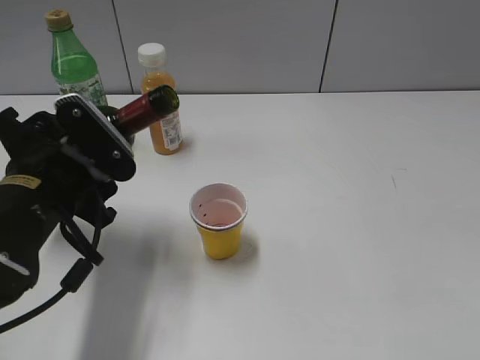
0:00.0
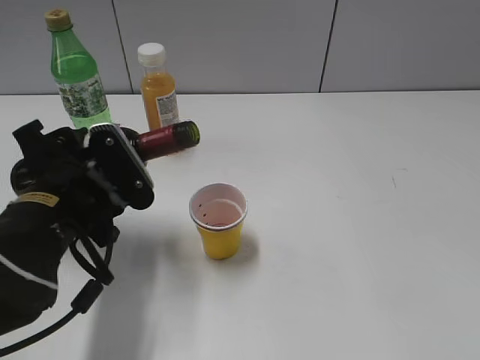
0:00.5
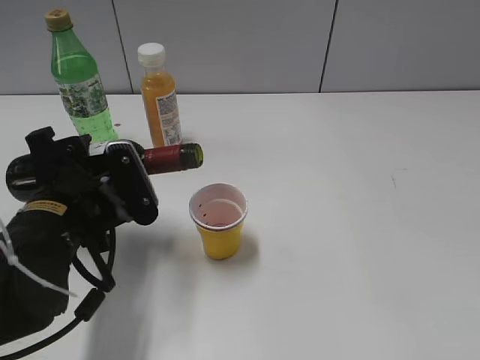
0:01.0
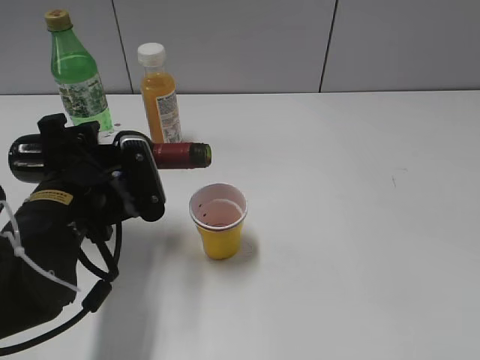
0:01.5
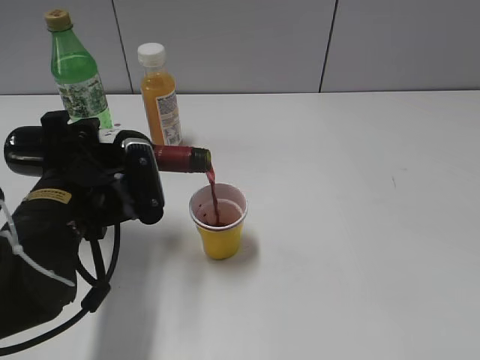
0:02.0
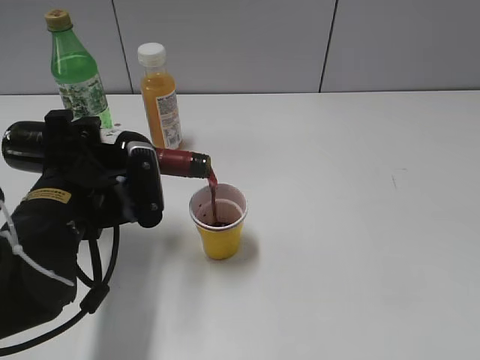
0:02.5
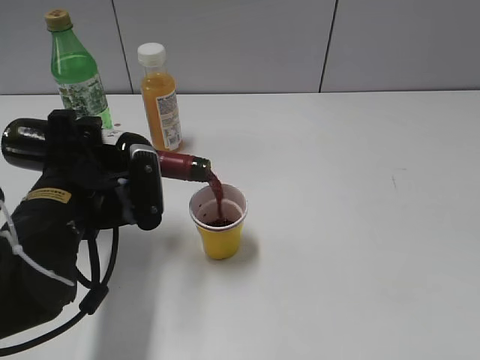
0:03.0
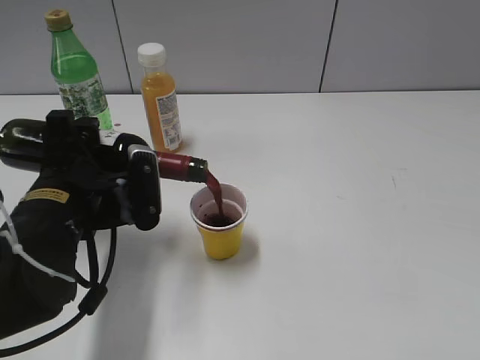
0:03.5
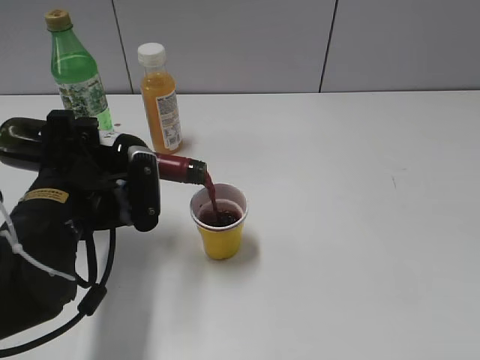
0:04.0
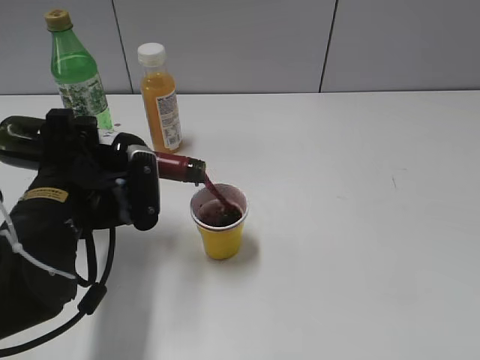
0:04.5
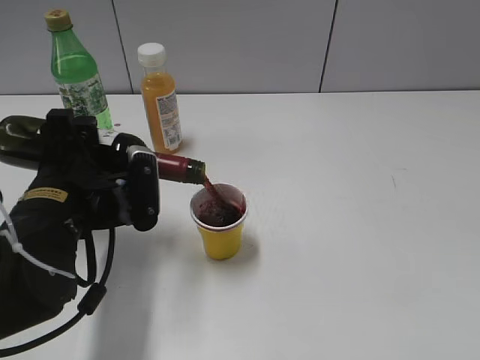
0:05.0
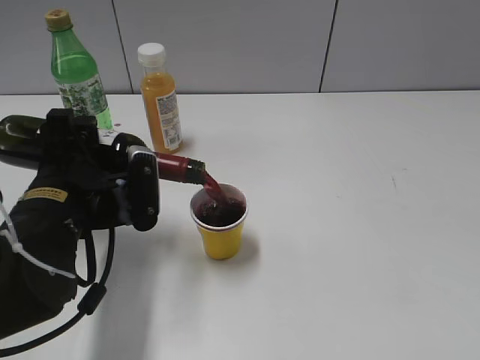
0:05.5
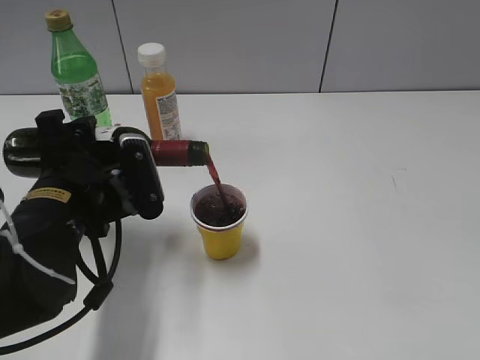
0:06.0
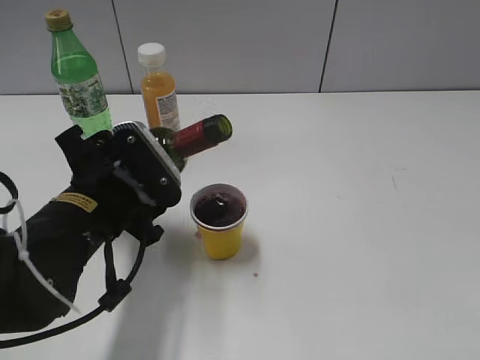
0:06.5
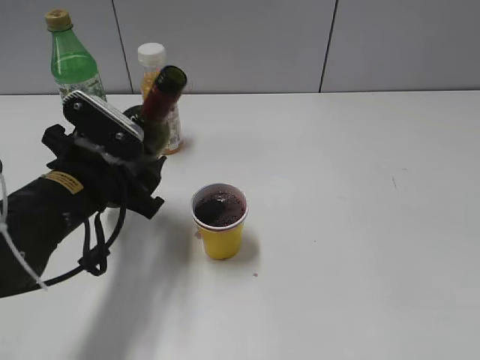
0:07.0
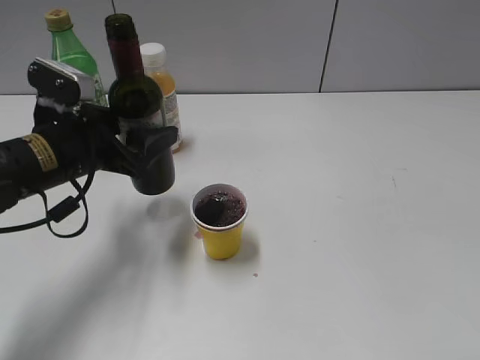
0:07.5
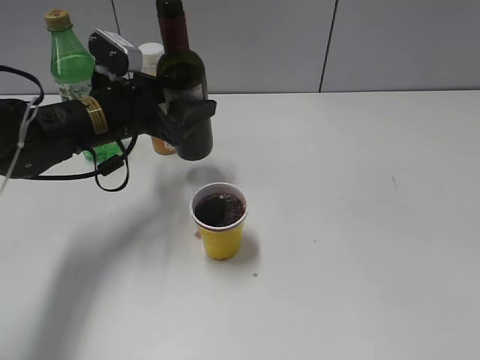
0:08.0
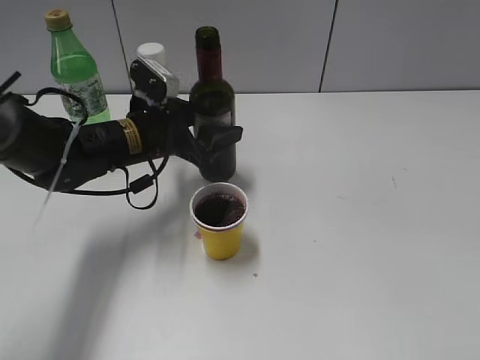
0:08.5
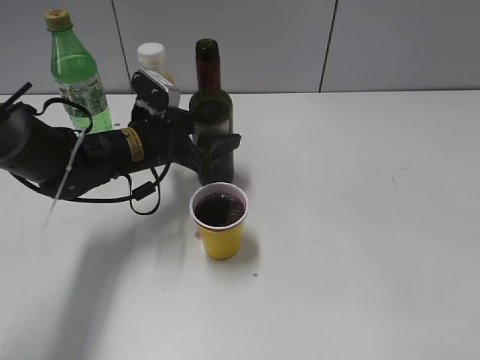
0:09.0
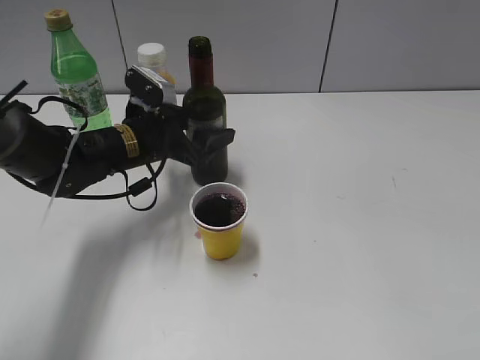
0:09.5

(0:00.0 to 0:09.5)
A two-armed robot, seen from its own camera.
Step, 0:00.0 - 0:06.5: Pour the red wine from bottle to cup with left gripper.
0:02.0 - 0:04.0: The grippers make only small movements.
0:04.0 - 0:05.5: The two grippers keep their place.
0:05.5 - 0:07.5: The left gripper goes some 5 cm forward.
0:07.5 - 0:09.5: The left gripper is displaced forward, to the right and downward by roughly 10 cm.

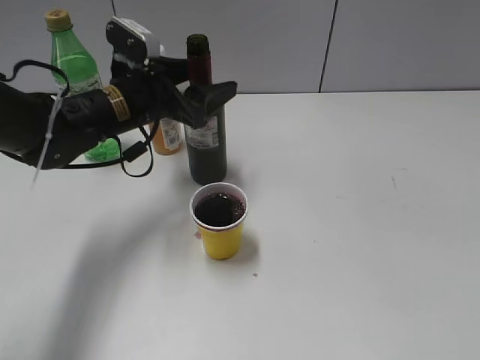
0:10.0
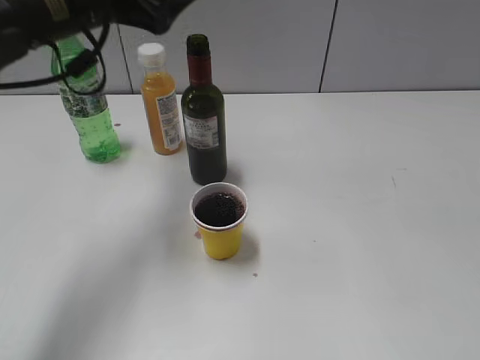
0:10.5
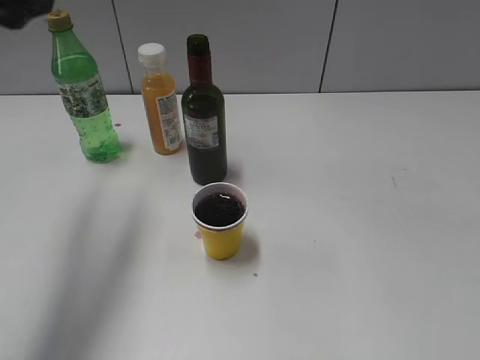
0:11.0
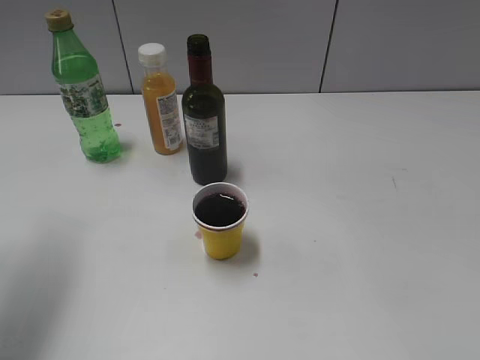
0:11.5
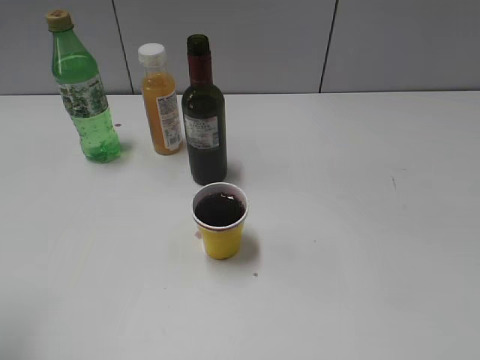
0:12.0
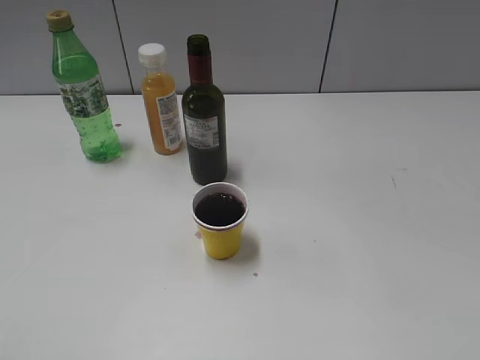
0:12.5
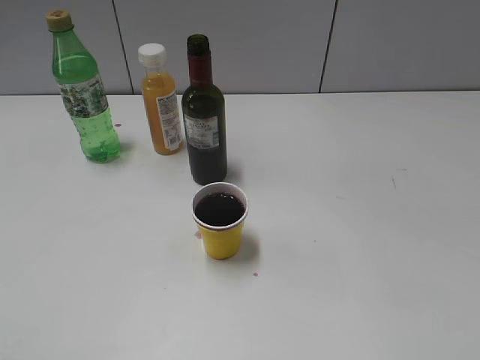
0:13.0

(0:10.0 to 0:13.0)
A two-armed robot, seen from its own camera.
0:10.0 - 0:11.5: The left gripper travels upward, to the left and backward by approximately 25 cm, and closes up.
0:11.5 - 0:13.0: The left gripper moves backward, roughly 25 cm.

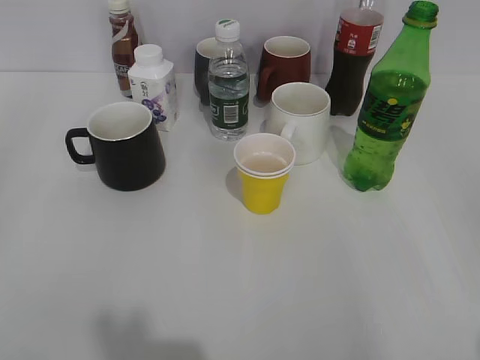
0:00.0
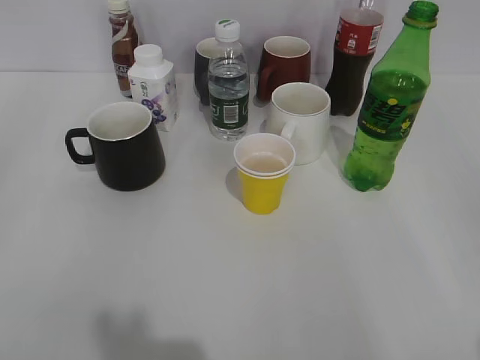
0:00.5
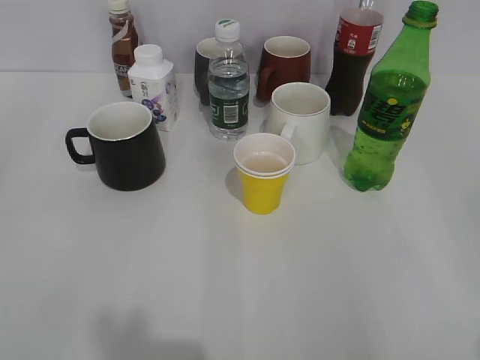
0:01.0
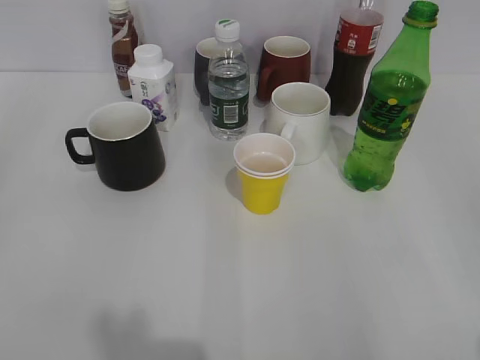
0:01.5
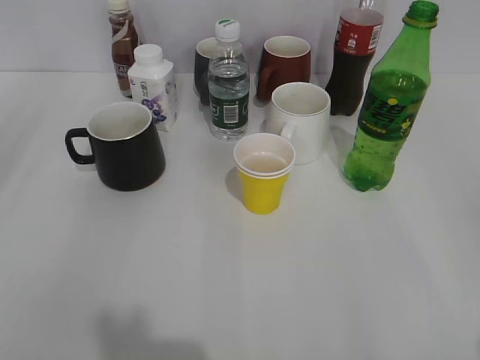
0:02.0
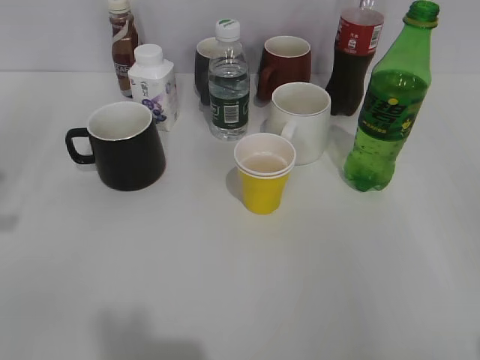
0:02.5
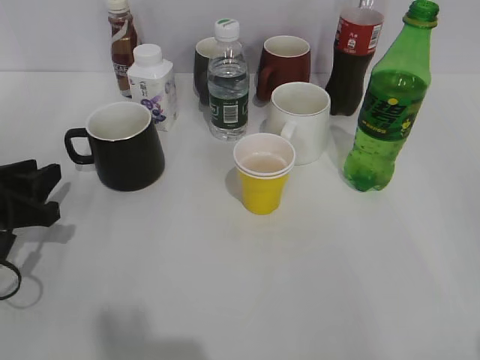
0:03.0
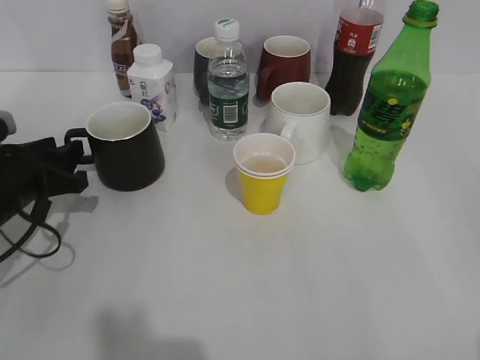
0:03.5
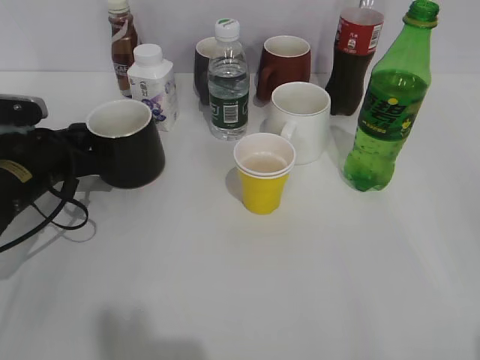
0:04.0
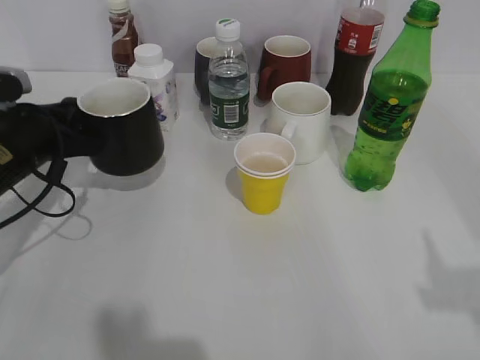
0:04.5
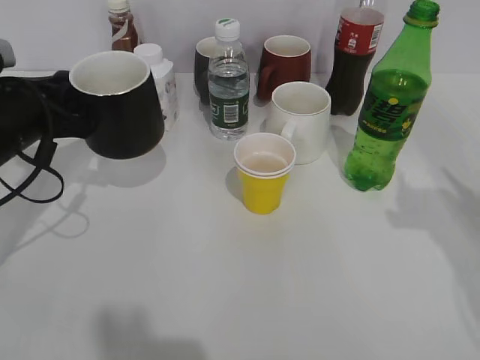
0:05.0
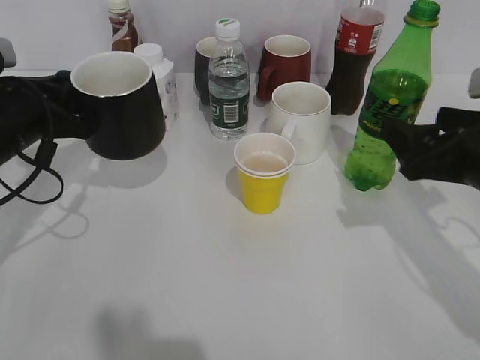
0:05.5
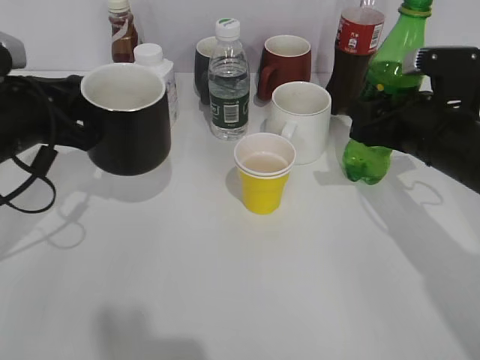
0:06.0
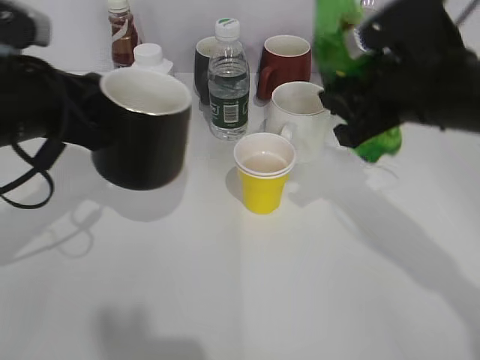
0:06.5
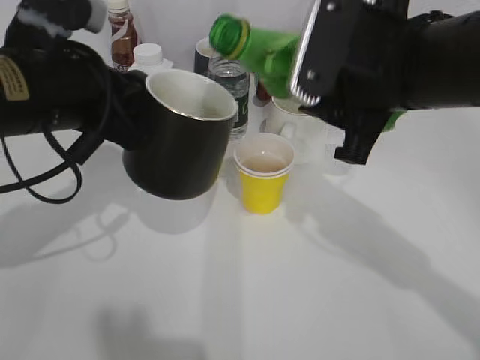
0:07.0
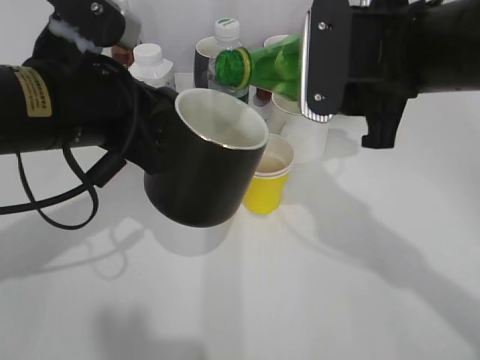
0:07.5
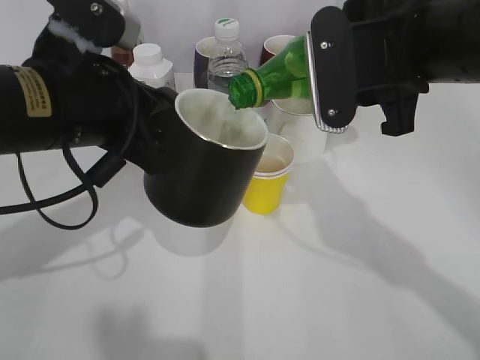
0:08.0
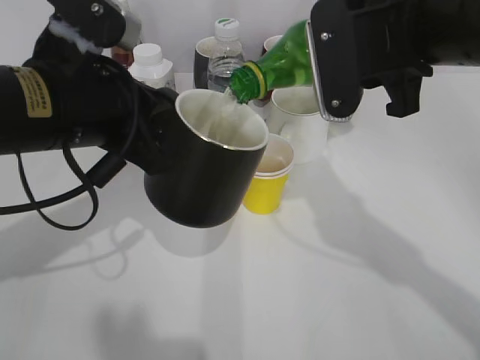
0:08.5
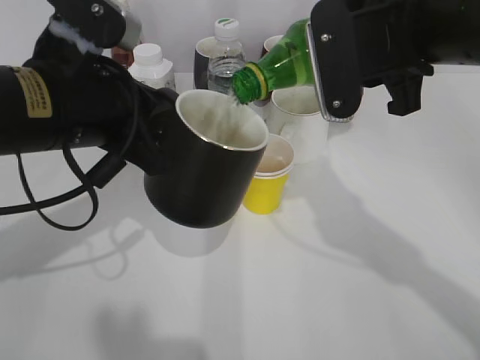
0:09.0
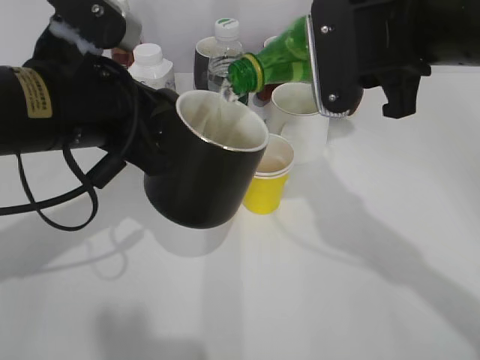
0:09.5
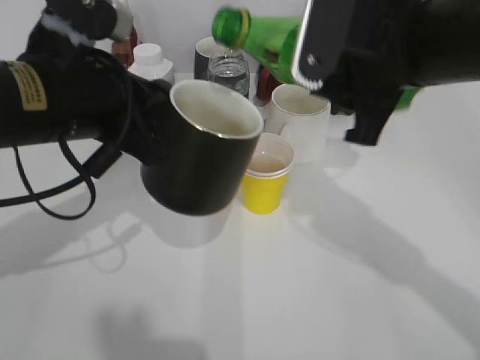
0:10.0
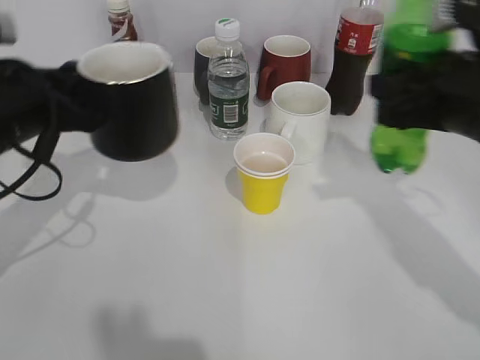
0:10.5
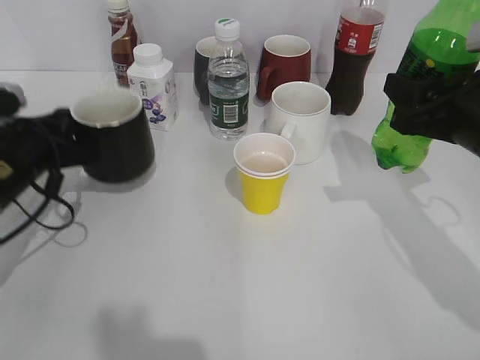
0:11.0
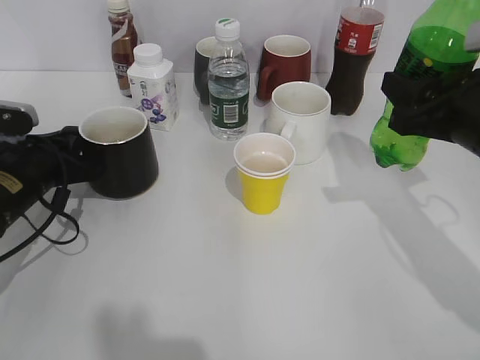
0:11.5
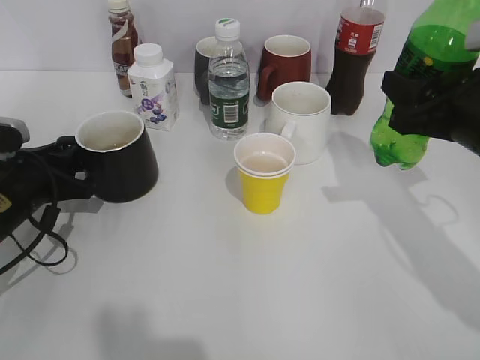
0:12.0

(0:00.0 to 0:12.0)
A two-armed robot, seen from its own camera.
Step, 0:02.0 - 0:04.0: Grasp the black cup with left gripper.
Step, 0:06.5 - 0:09.5: Pour the sprite from bottle to cup with right gripper.
Step, 0:10.5 - 0:12.0: Place the black cup on the table with left gripper.
0:02.0 - 0:04.0: The left gripper heads forward and downward, covering approximately 35 cm.
0:04.0 - 0:06.0: The right gripper travels forward by roughly 30 cm, and closes up; the left gripper heads upward, covering approximately 10 cm.
0:06.0 - 0:08.0: The right gripper moves upward and to the left, approximately 15 cm. Meanwhile the left gripper is displaced to the right and upward by roughly 10 cm.
0:10.0 - 0:12.0: The right gripper shifts roughly 10 cm to the right and downward; the left gripper shifts about 20 cm downward and to the left, and opens up.

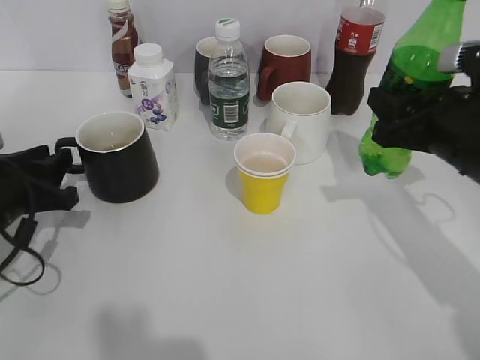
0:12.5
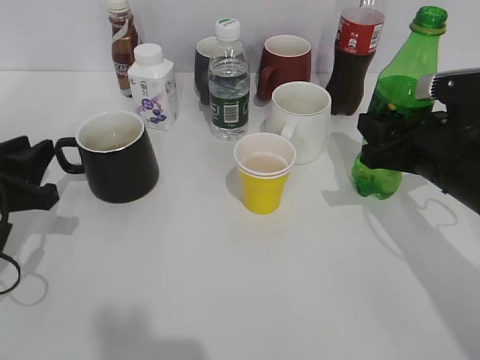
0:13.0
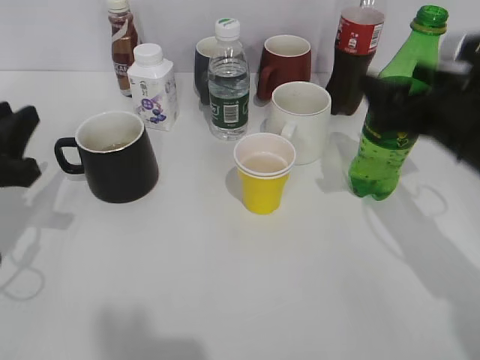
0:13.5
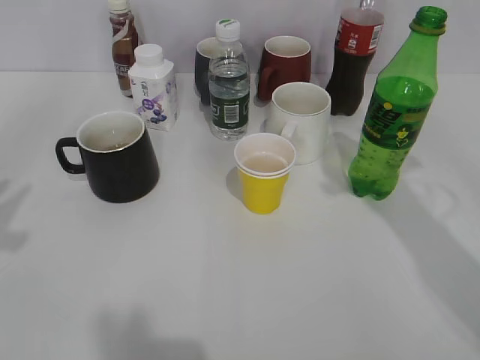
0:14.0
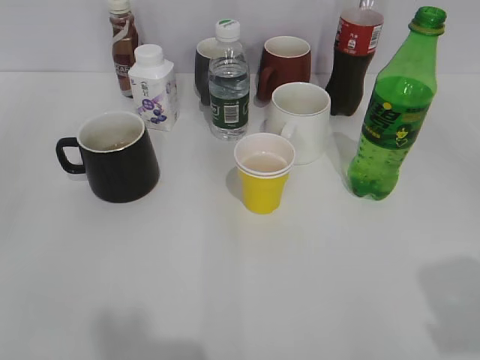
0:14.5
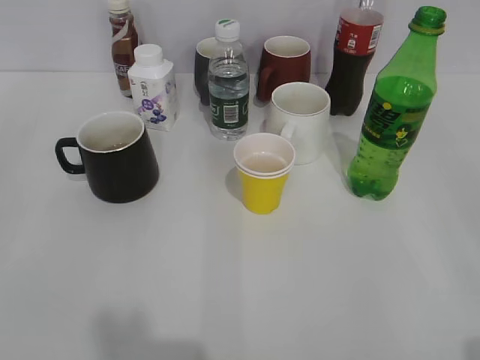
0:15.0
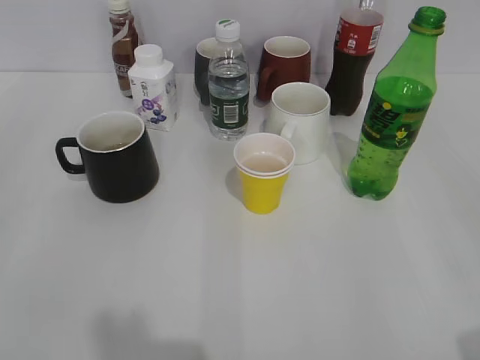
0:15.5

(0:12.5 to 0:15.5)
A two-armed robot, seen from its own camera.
Step, 0:12.5 - 0:13.5: Place the sprite bottle on the table with right gripper.
0:12.5 - 0:14.0: The right gripper is displaced upward by some 15 cm, and opens its fingers. The left gripper heads upward and backward, covering about 20 cm.
0:14.0 - 0:15.5: The right gripper is displaced backward by some 20 cm.
